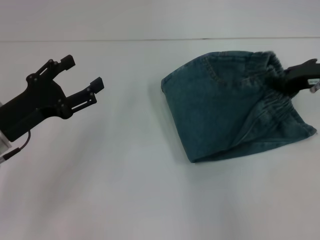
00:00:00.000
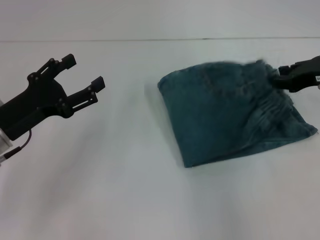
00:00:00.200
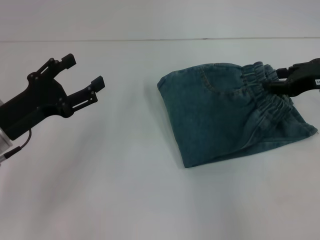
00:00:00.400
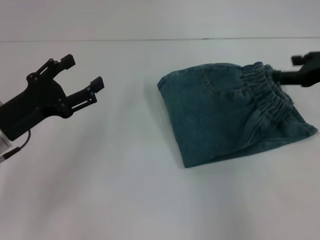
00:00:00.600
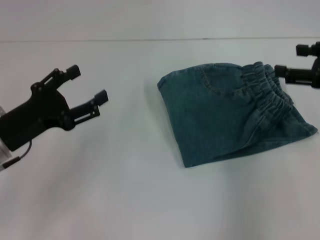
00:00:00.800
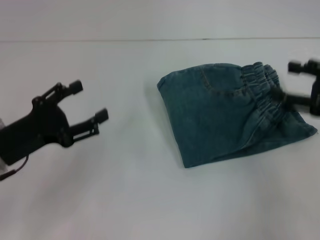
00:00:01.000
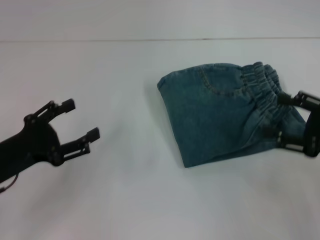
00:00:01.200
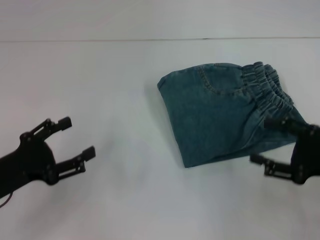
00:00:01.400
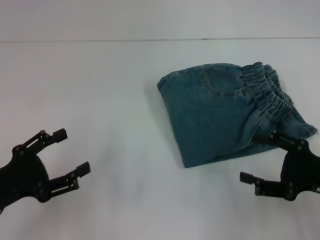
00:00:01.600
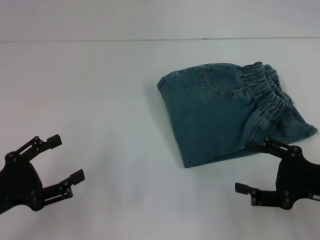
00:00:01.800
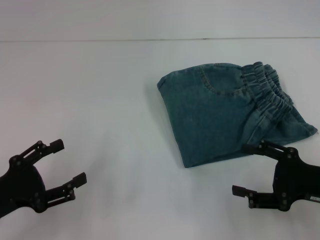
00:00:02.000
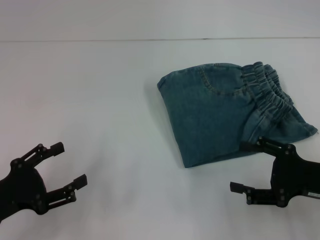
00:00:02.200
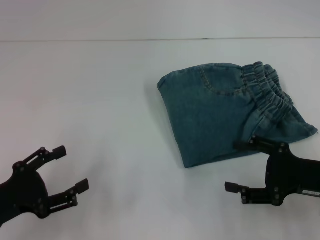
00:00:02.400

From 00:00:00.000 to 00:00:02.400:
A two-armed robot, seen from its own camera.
From 00:00:00.000 to 00:00:01.200: The right gripper travels backward by some 10 cm, and opens its fingers.
From 00:00:01.200 to 00:00:02.400: The right gripper shifts by some 5 cm. The left gripper goes approximately 5 cm backward.

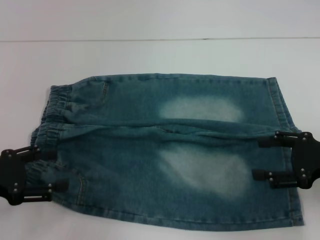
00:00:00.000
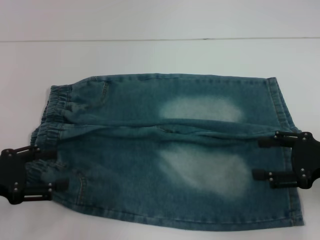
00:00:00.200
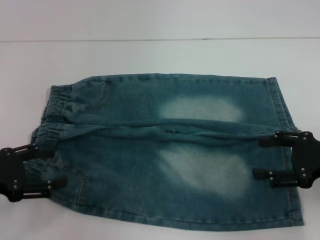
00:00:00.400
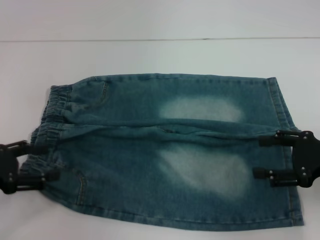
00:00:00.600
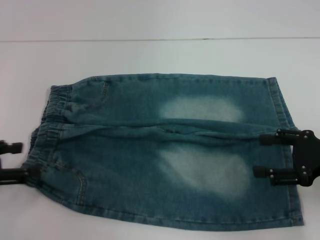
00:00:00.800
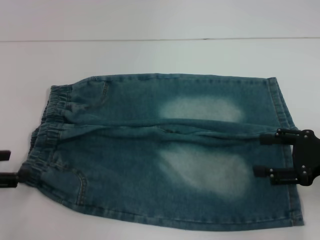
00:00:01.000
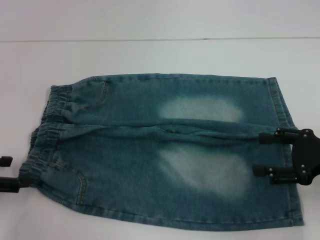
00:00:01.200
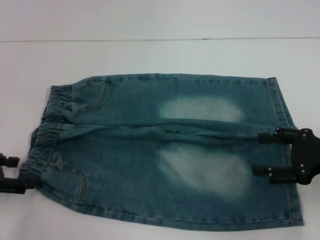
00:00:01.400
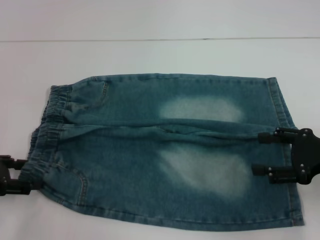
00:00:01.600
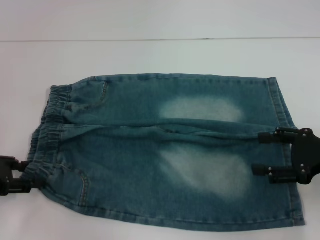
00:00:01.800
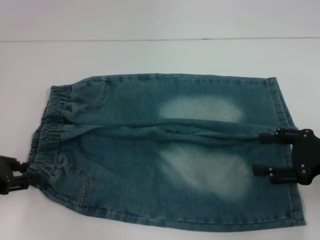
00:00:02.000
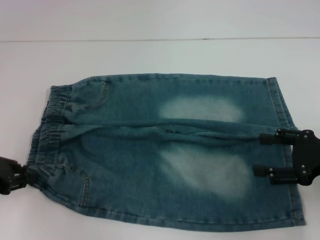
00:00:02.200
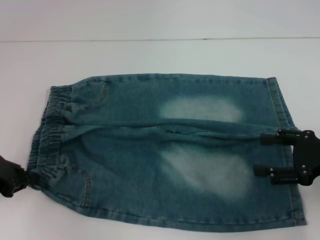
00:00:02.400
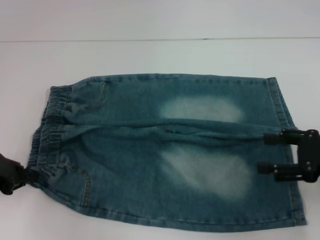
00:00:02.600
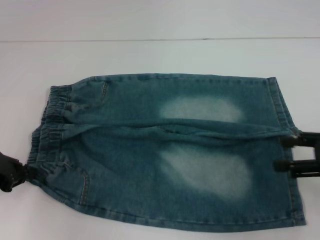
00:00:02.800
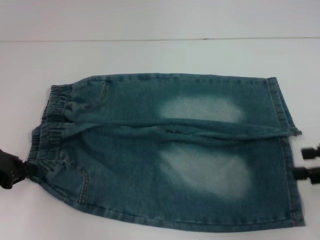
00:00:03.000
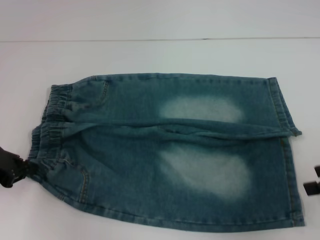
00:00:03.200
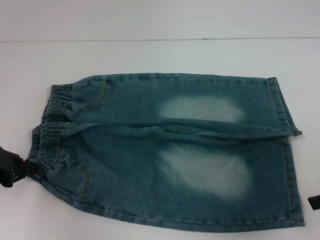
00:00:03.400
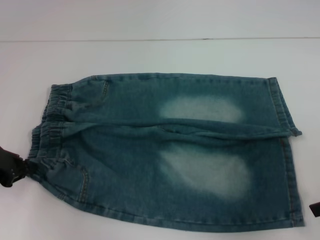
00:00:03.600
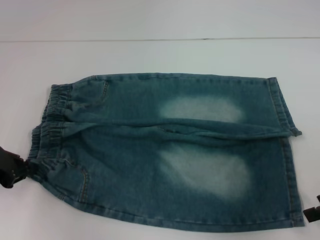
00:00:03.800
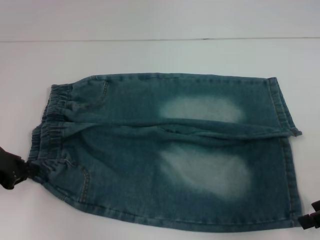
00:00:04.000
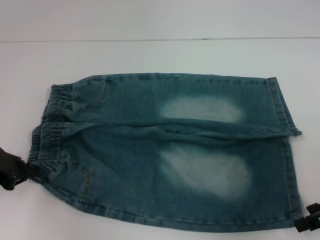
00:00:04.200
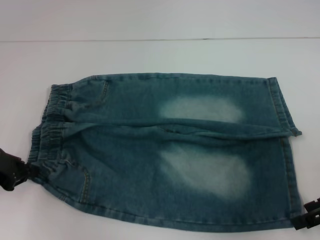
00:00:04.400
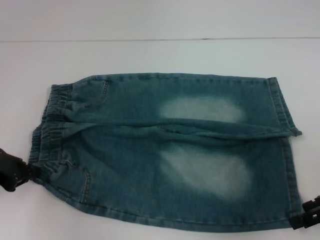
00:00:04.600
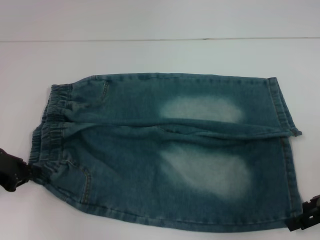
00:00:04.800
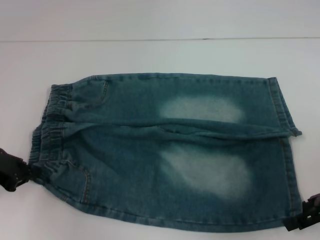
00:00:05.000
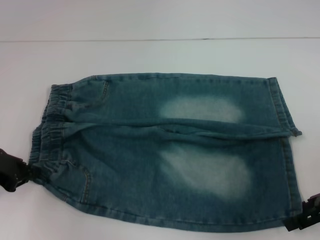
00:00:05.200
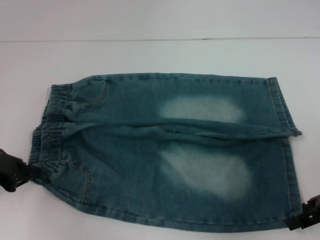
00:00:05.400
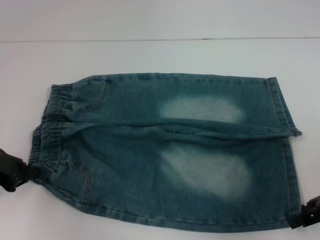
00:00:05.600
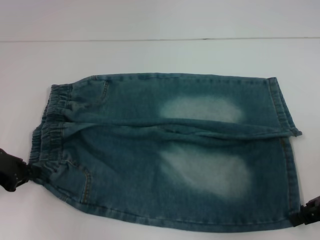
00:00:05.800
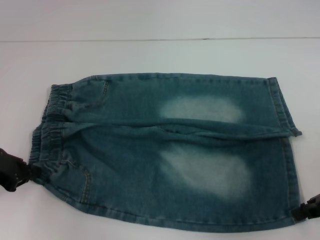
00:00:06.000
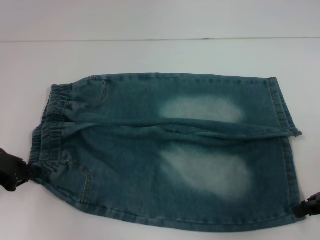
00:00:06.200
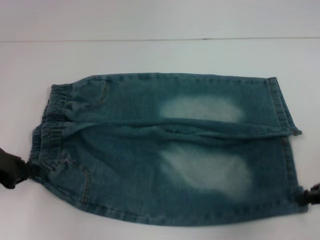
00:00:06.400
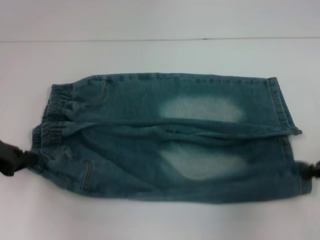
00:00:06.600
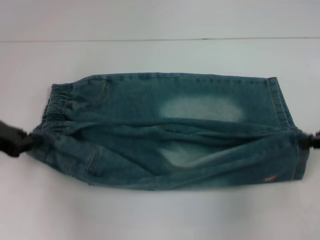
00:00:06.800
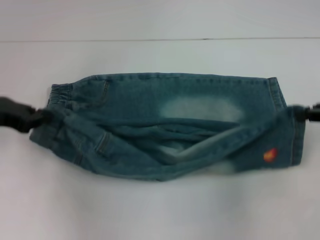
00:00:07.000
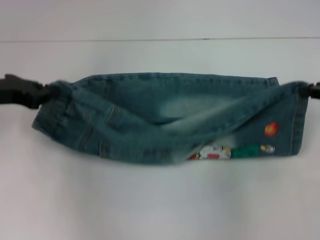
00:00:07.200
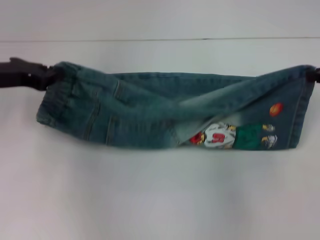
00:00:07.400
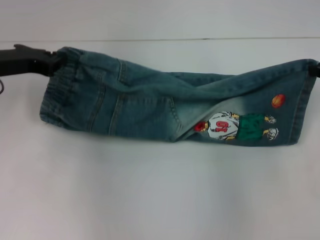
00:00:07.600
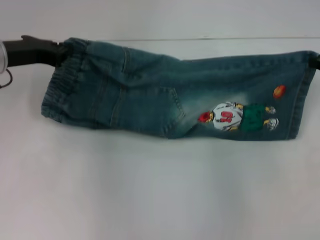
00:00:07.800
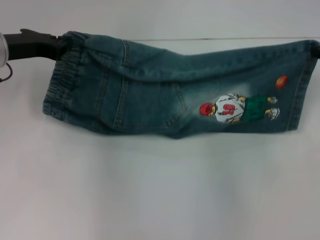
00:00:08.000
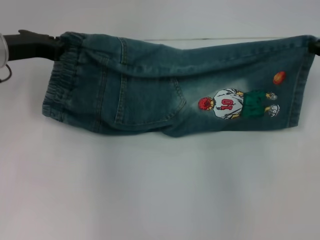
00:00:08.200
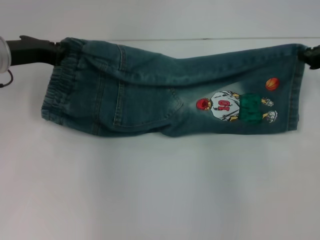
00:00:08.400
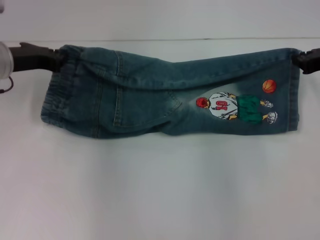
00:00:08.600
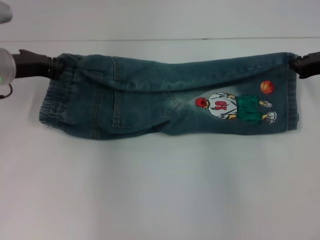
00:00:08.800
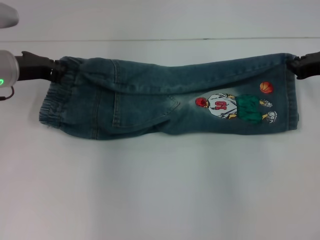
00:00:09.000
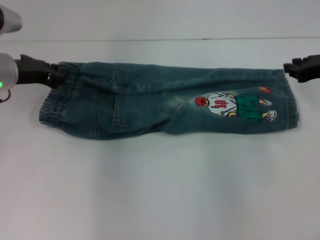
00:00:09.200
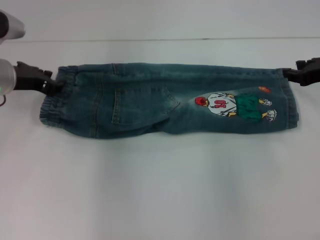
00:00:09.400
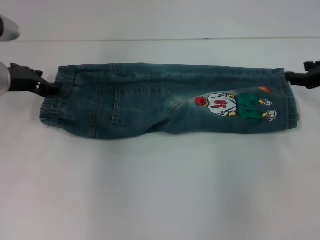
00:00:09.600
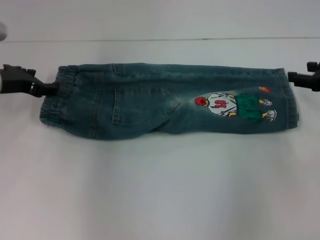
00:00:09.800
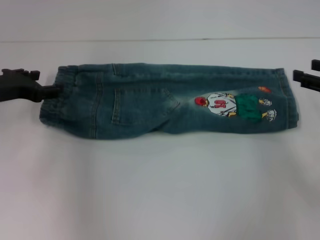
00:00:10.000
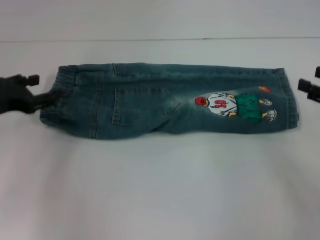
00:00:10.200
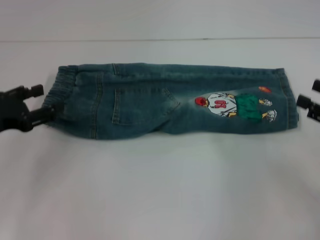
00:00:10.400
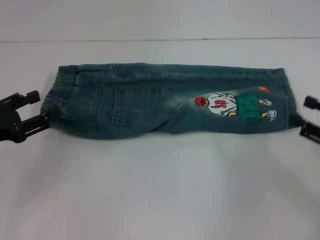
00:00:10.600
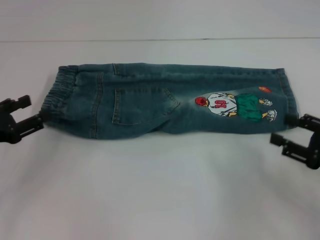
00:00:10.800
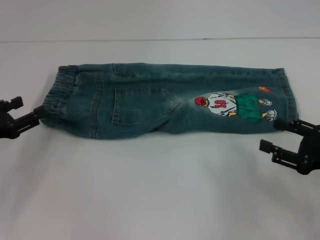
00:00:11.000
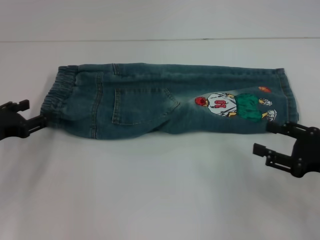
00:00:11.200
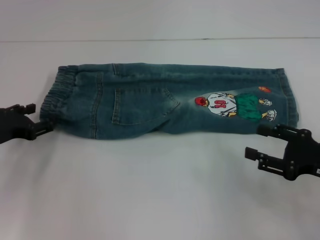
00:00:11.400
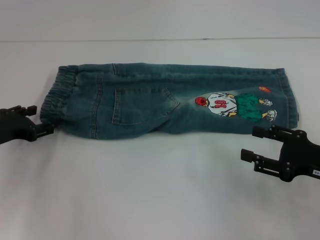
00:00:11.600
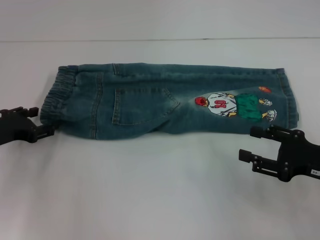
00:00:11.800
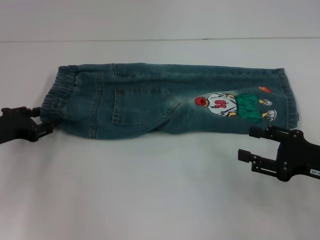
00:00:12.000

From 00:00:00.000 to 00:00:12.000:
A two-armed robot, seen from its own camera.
Step, from 00:00:00.000 to 00:00:02.400: Hold the lower left waistband with your left hand.
Step, from 00:00:02.600 to 00:00:06.000: Grab the lower right pant leg with your right hand.
Step, from 00:00:06.200 to 00:00:09.800: Fold upward with your right hand.
From 00:00:01.600 to 00:00:03.000: The left gripper closes its fingers. Meanwhile the right gripper moves about 5 cm.
From 00:00:04.400 to 00:00:06.000: The right gripper closes.
From 00:00:06.000 to 00:00:07.600: The right gripper goes roughly 10 cm forward and upward, while the left gripper heads forward, upward and to the right, covering some 15 cm.
From 00:00:07.600 to 00:00:09.000: The right gripper ends up some 5 cm from where it was.
From 00:00:09.000 to 00:00:10.400: The right gripper goes roughly 15 cm backward, and opens, while the left gripper heads backward and to the left, covering about 15 cm, and opens up.
From 00:00:10.400 to 00:00:12.000: The right gripper moves to the left, approximately 5 cm. The left gripper moves some 5 cm.

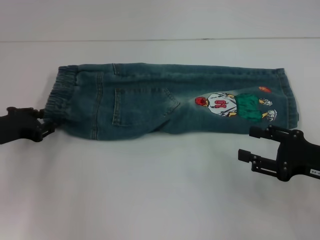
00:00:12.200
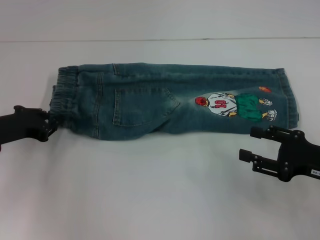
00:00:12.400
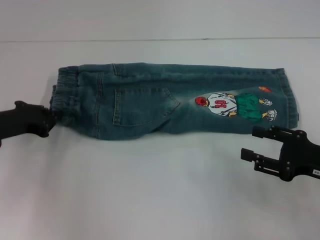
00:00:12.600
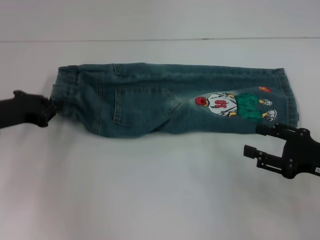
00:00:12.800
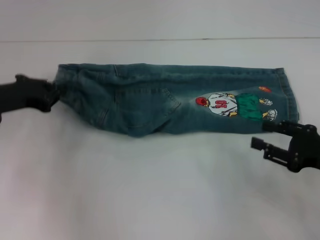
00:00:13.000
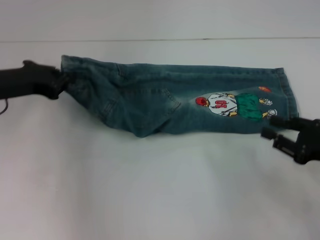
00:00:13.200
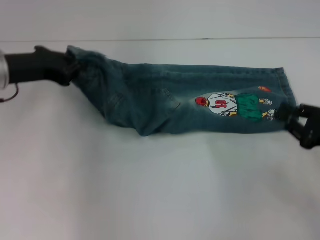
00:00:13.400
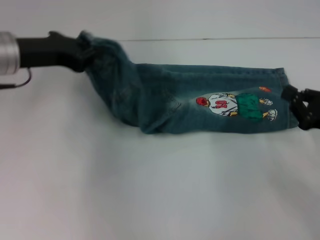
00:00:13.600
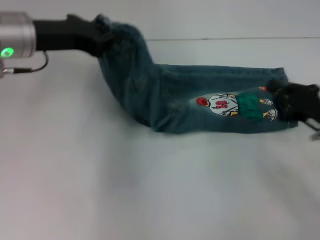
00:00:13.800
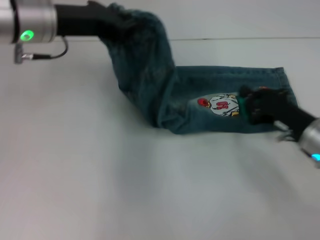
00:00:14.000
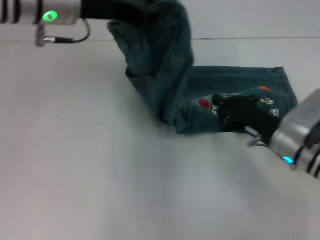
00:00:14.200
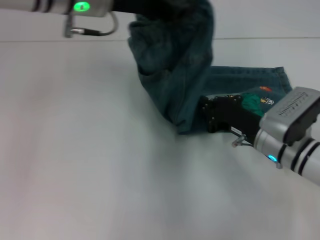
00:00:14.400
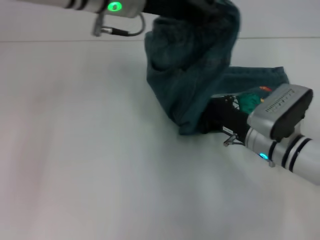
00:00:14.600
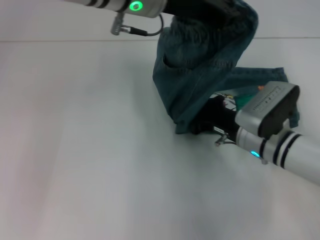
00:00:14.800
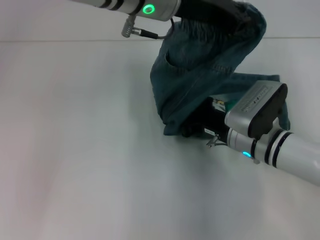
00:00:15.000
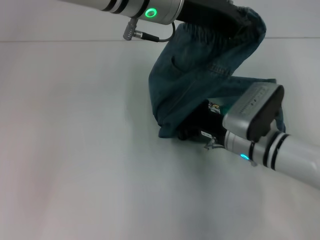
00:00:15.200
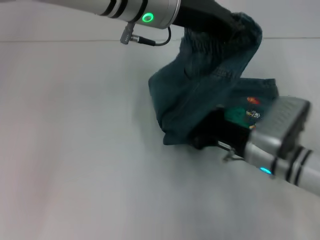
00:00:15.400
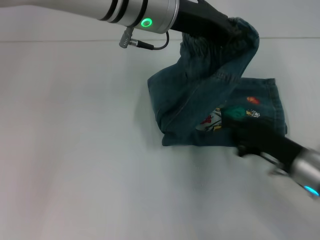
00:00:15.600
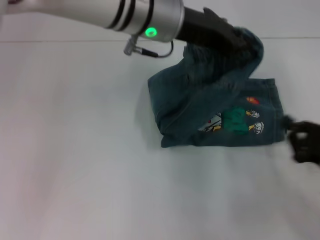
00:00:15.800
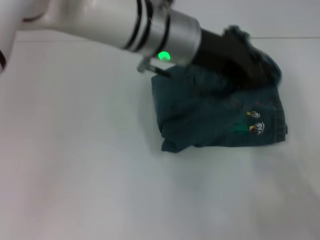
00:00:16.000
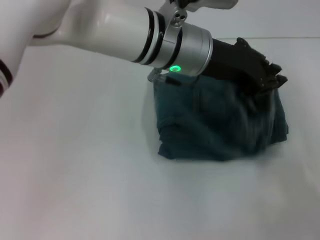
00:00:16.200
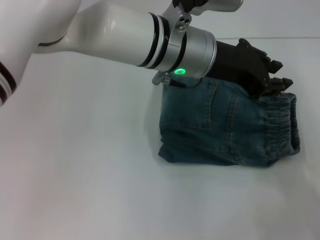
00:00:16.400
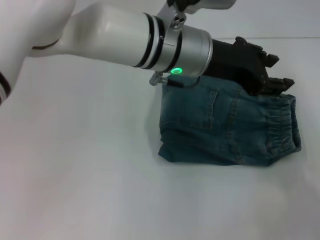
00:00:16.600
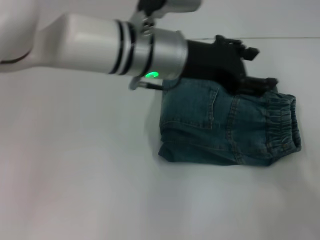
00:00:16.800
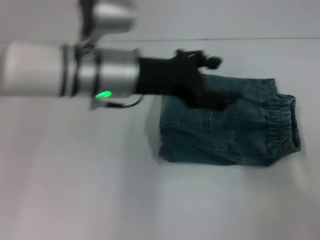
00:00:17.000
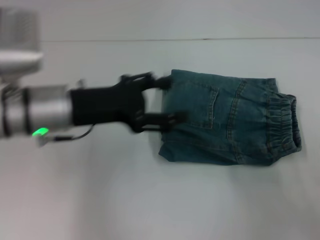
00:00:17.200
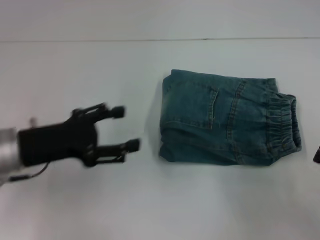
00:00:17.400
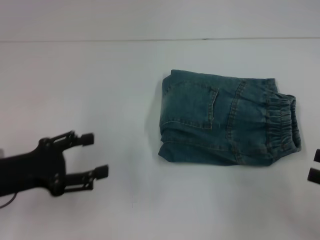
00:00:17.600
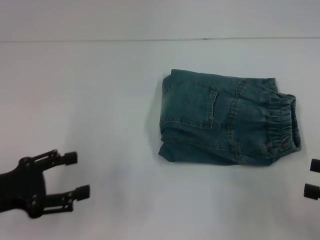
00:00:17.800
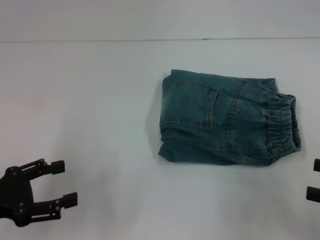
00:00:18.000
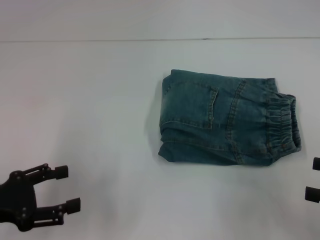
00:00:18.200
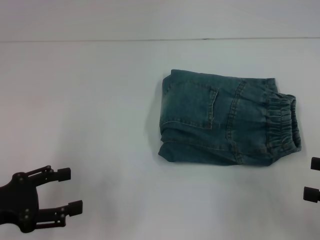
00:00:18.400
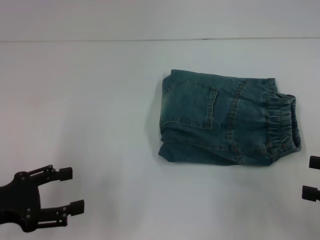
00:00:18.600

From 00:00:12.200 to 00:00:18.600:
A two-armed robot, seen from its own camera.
Step, from 00:00:12.600 to 00:00:15.400: Press the middle of the pants with your right hand.
Step, from 00:00:15.600 to 00:00:16.800: Fold to the right with your left hand.
From 00:00:12.200 to 00:00:13.800: The left gripper moves upward, to the right and forward, roughly 20 cm, and closes its fingers. The right gripper closes its fingers.
From 00:00:13.800 to 00:00:15.400: The left gripper travels to the right by roughly 15 cm. Meanwhile the right gripper is displaced to the left by roughly 15 cm.
From 00:00:15.400 to 00:00:17.000: The left gripper goes about 10 cm downward, backward and to the left, and opens its fingers, while the right gripper heads to the right and backward, covering roughly 25 cm.
From 00:00:17.000 to 00:00:18.600: The right gripper goes about 5 cm upward, and opens, while the left gripper goes roughly 30 cm to the left, backward and downward.
